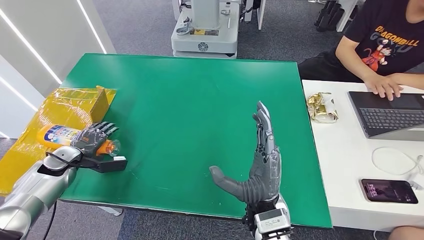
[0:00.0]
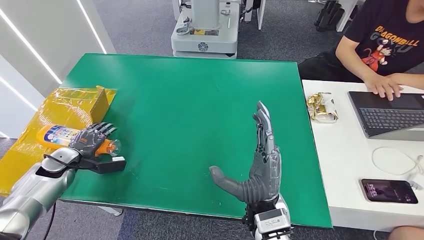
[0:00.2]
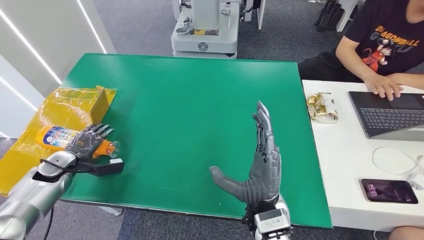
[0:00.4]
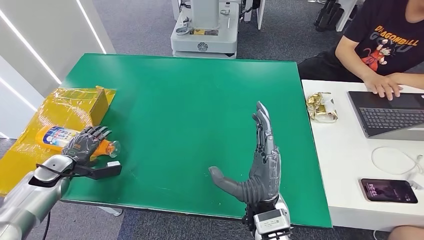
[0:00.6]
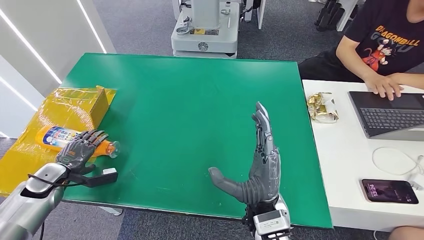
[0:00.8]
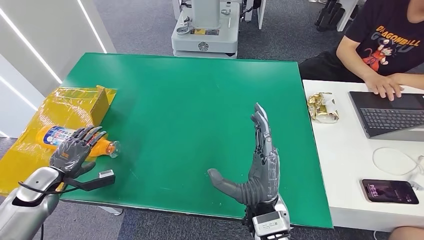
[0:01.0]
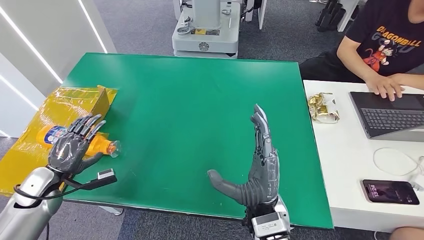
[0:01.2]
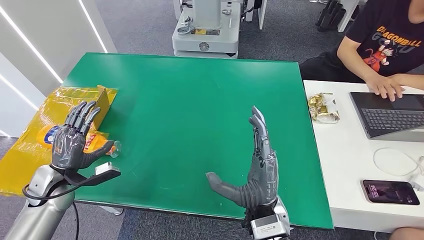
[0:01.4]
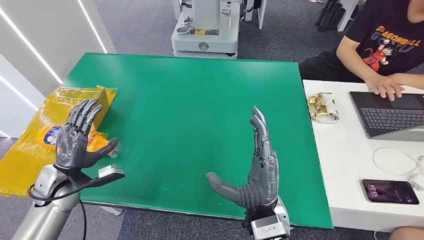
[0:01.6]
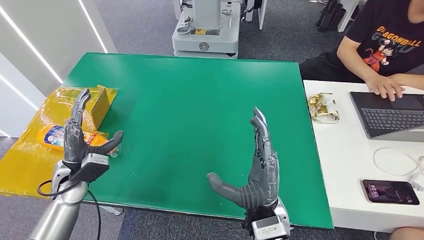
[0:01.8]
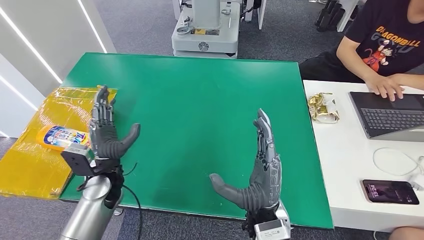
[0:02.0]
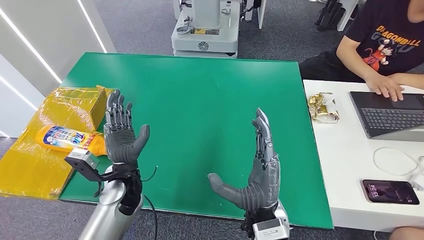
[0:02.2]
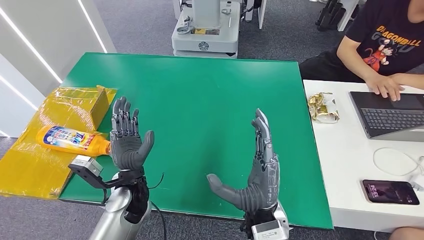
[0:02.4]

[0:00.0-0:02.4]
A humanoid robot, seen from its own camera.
Step, 0:00.0 to 0:02.4: Turn the bottle to the front side.
0:00.0 to 0:01.2: The left hand goes some 10 cm backward.
0:01.2 to 0:02.4: The left hand goes roughly 25 cm to the right.

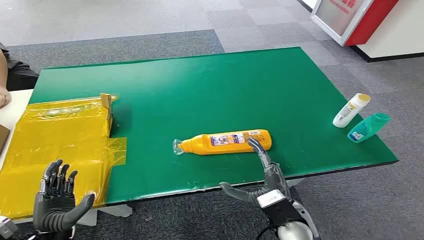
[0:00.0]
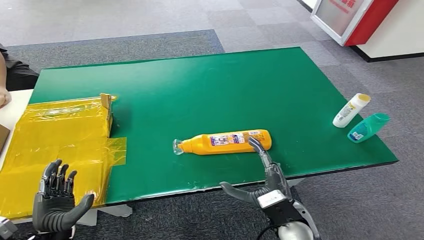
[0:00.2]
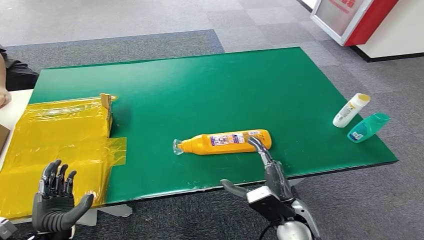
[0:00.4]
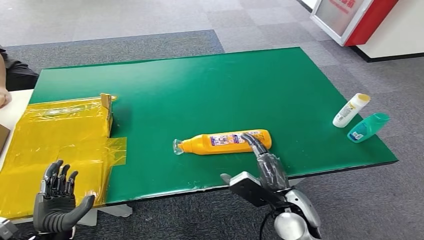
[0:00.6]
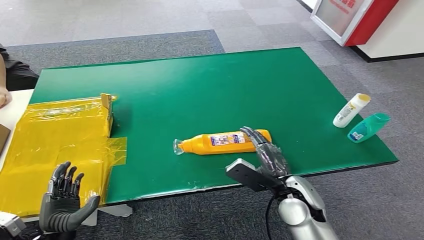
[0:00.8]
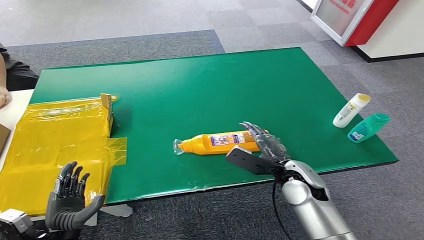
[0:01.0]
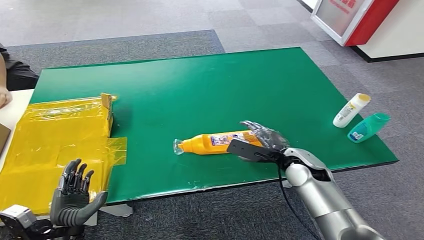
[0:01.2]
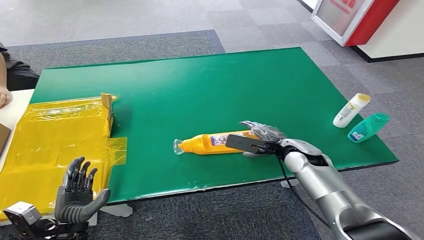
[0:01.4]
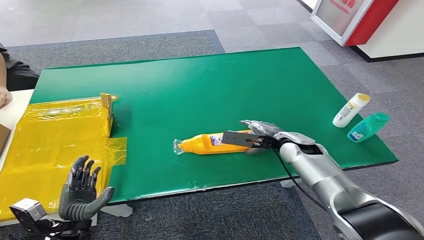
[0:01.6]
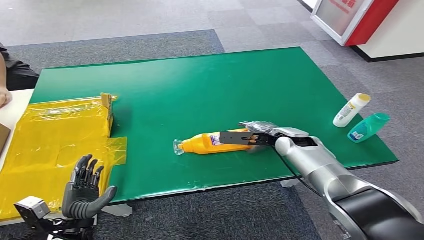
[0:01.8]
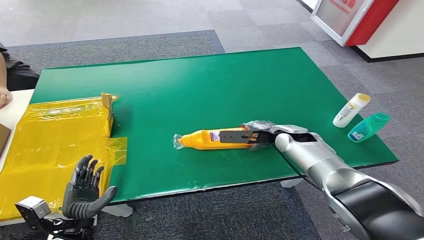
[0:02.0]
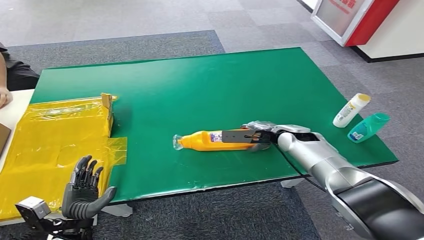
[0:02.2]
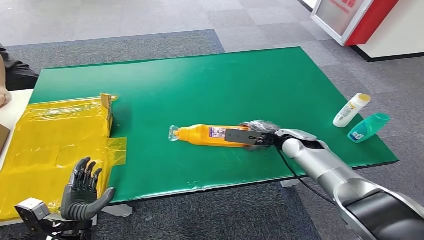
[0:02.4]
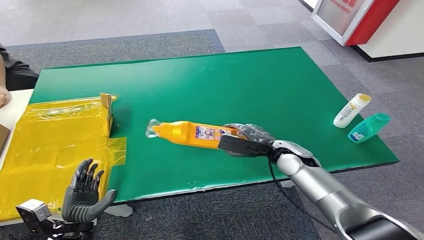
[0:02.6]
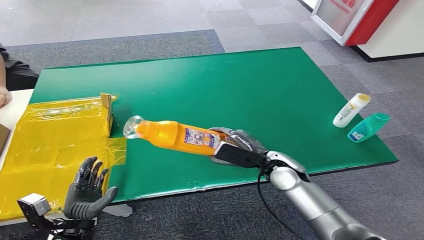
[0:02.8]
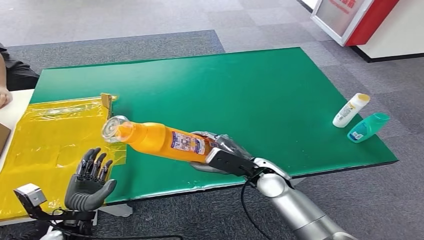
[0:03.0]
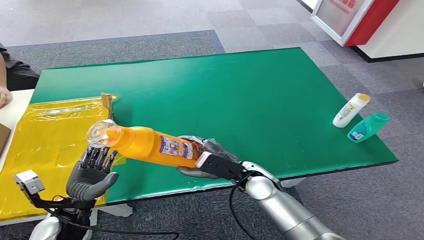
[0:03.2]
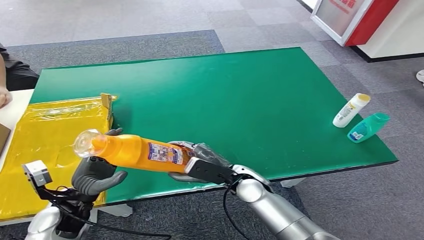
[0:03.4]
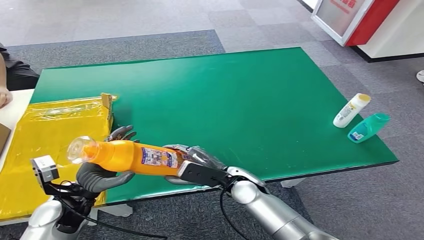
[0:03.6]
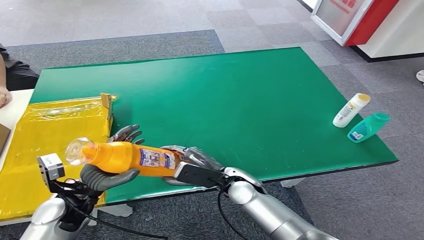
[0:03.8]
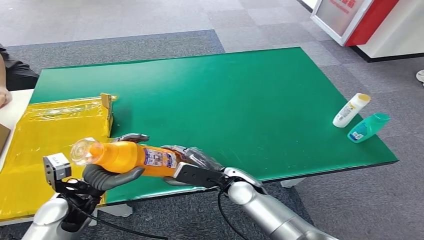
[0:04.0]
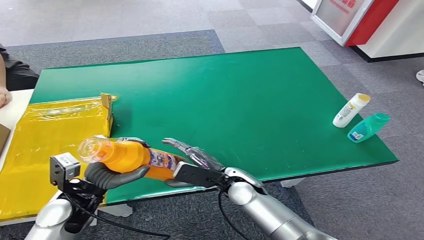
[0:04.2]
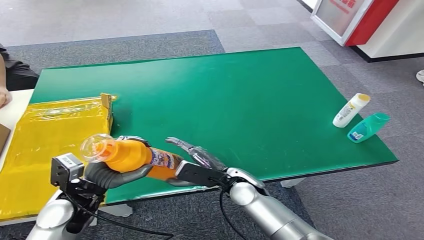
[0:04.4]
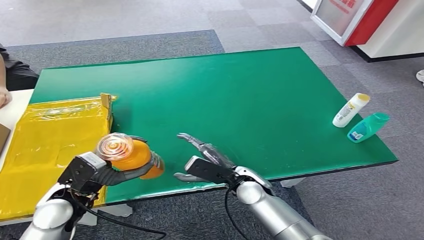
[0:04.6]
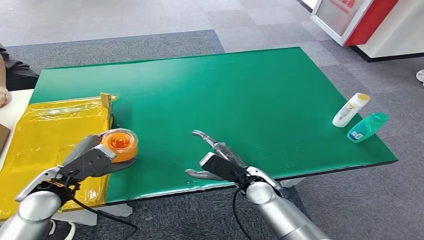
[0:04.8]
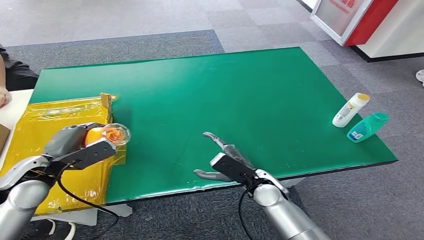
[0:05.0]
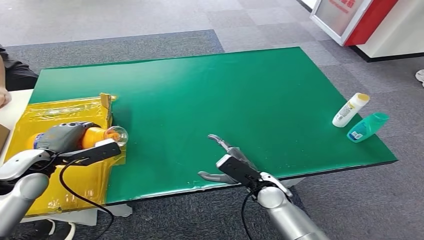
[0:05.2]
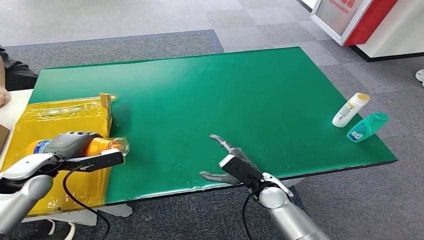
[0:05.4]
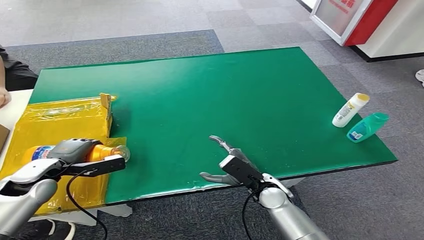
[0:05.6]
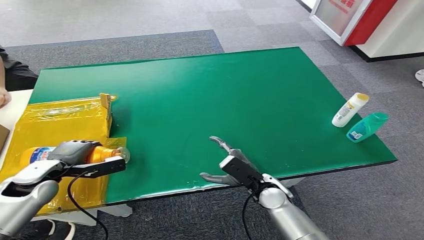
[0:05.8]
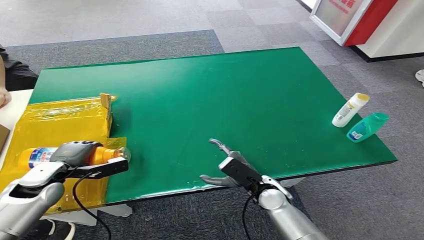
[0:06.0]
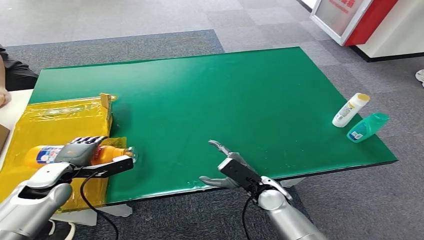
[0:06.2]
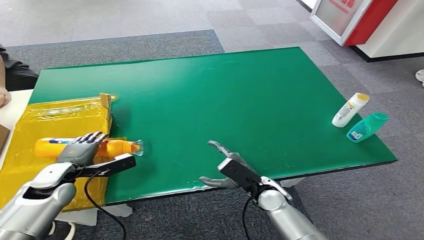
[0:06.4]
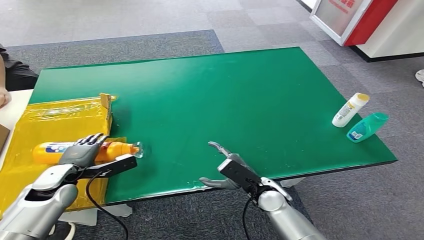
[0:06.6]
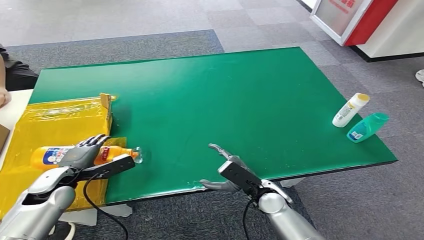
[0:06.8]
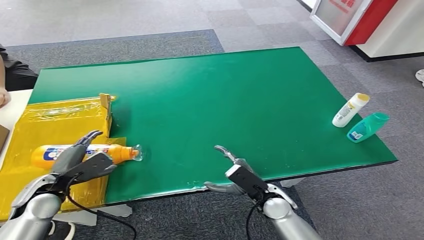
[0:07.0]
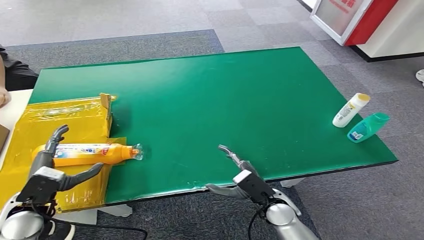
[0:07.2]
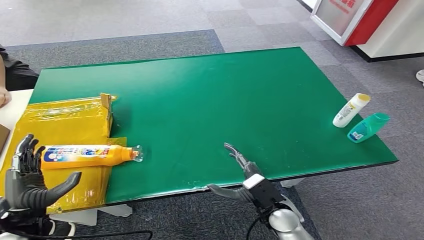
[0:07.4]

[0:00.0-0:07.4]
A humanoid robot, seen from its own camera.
Step, 0:00.0 to 0:02.6: Pick up the bottle from the table.
Step, 0:03.0 to 0:07.4: Turn the bottle to the front side.
0:01.4 to 0:03.0: The right hand moves to the left and backward, approximately 10 cm.
0:03.0 to 0:04.4: The right hand shifts about 5 cm to the left. The left hand heads upward and forward, covering about 10 cm.
0:04.4 to 0:06.0: The right hand shifts roughly 5 cm to the right. The left hand goes roughly 15 cm to the left and forward.
0:06.0 to 0:07.4: The left hand heads backward, covering some 15 cm. The right hand shifts about 5 cm backward.
